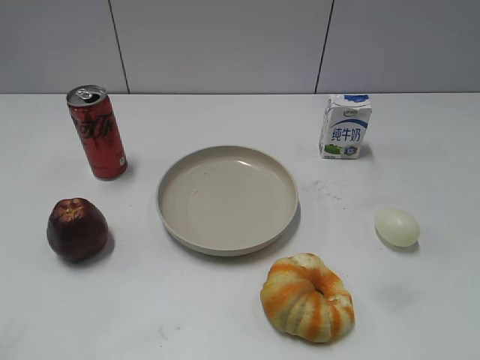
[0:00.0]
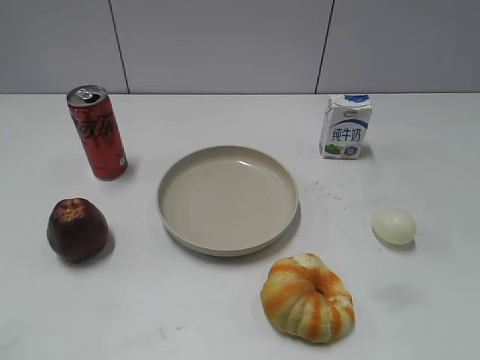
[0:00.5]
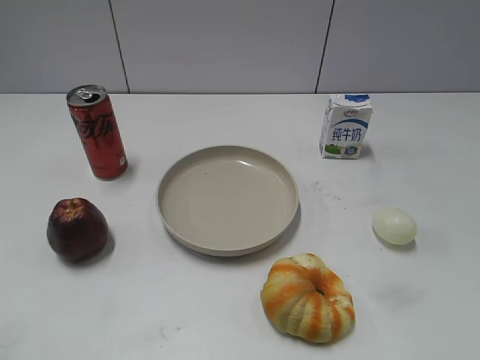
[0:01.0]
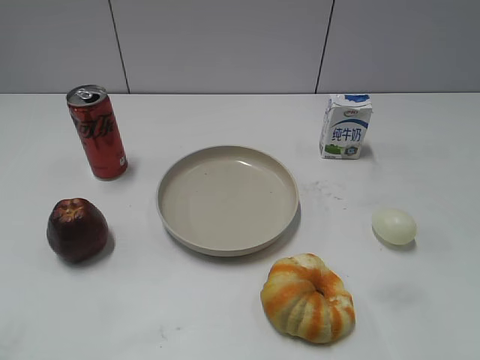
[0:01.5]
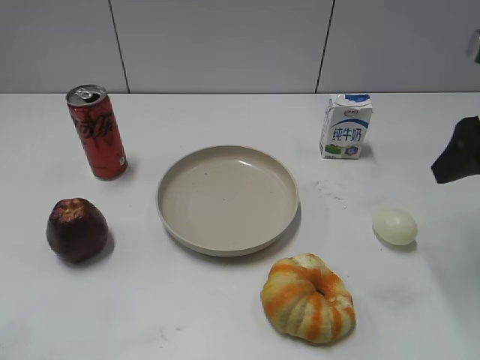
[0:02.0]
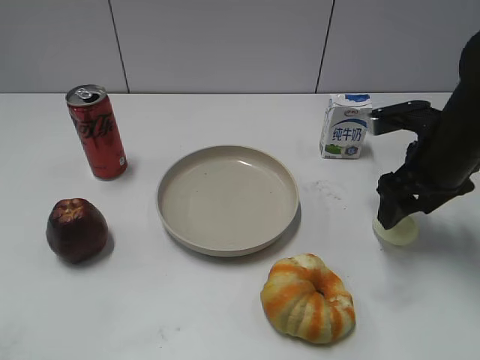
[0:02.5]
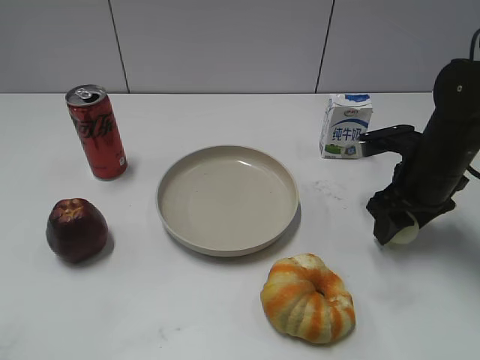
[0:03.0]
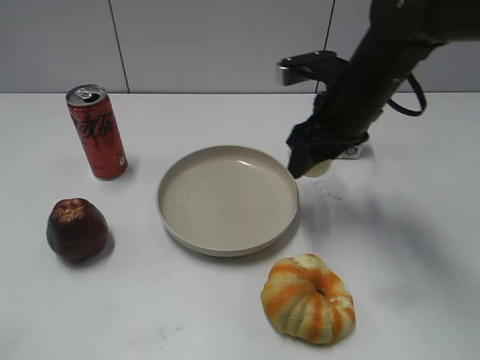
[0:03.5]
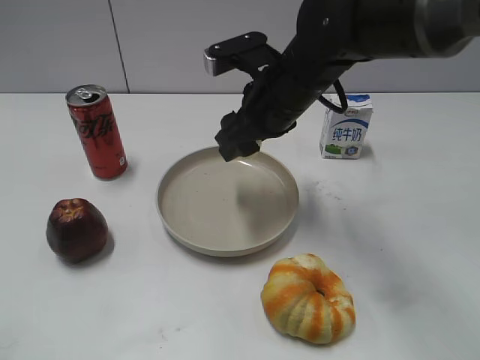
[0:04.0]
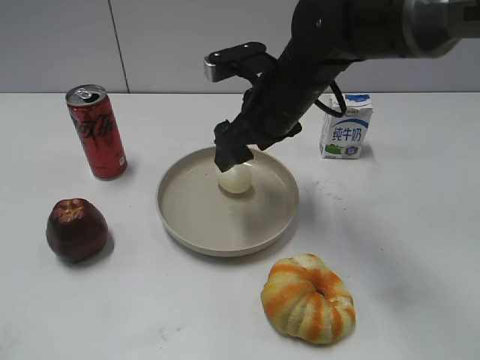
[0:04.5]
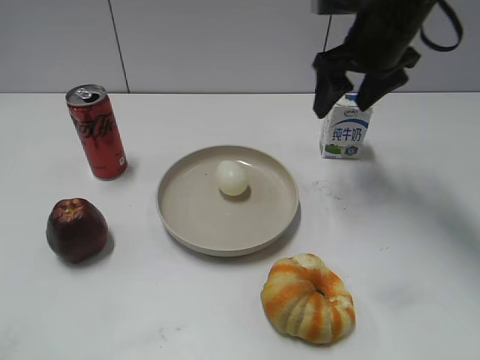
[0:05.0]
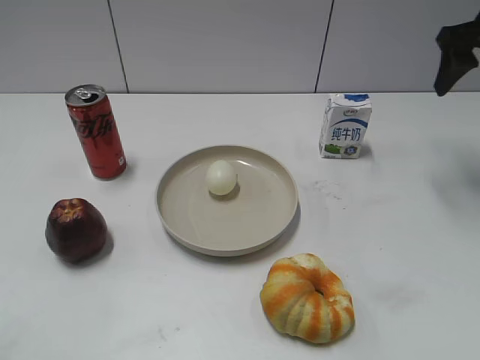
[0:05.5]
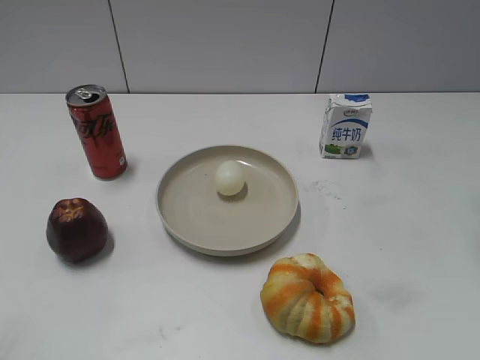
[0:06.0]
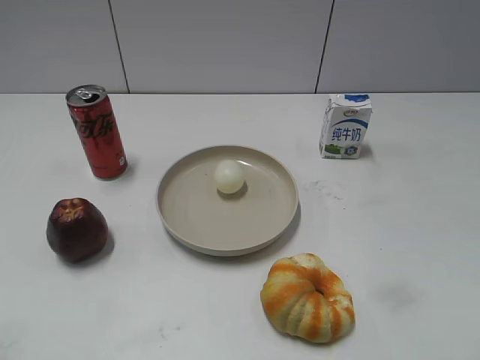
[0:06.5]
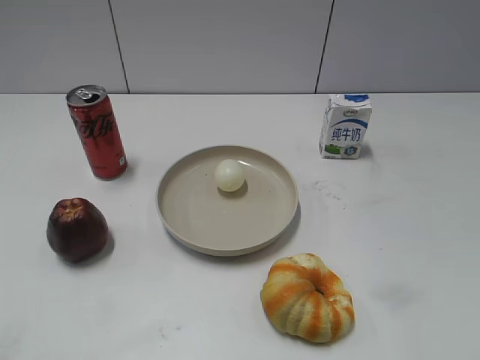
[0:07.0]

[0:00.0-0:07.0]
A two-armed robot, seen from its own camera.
Step, 0:01.0 to 0:02.5: Grasp the egg with right gripper.
Step, 0:03.5 to 0:04.5: Place the egg on the plate with right gripper.
0:02.0 to 0:03.5: The right gripper heads to the left and forward, covering some 15 cm, and closes up.
0:03.5 to 0:05.0: The right gripper travels forward and upward by approximately 10 cm, and opens up.
0:05.0 to 0:07.0: The right gripper is displaced backward and to the right by approximately 35 cm.
